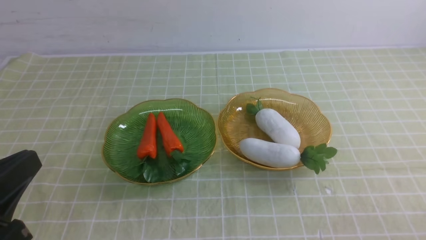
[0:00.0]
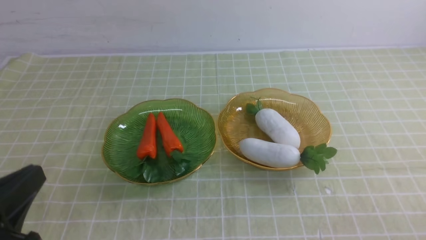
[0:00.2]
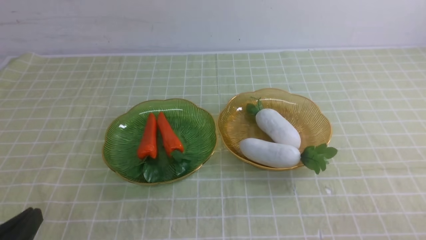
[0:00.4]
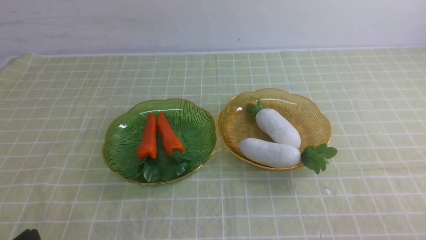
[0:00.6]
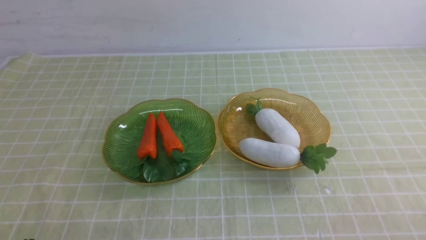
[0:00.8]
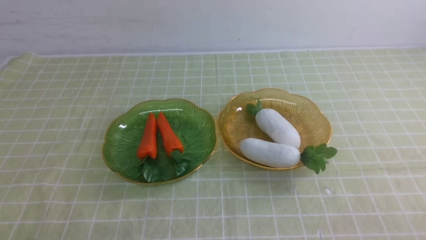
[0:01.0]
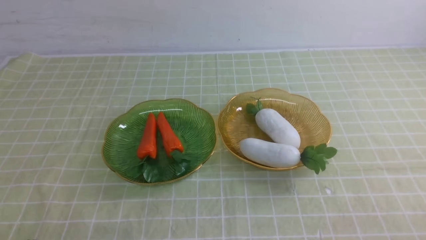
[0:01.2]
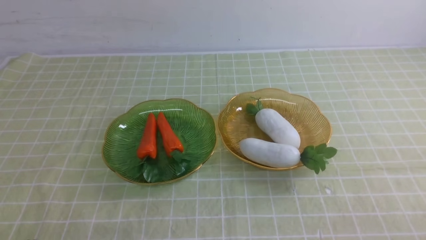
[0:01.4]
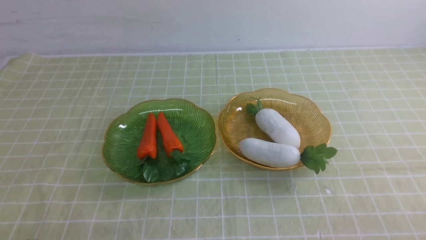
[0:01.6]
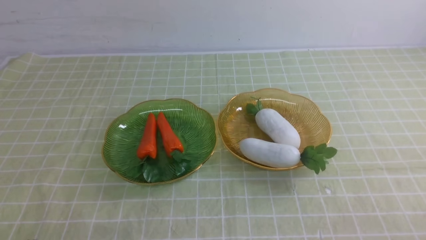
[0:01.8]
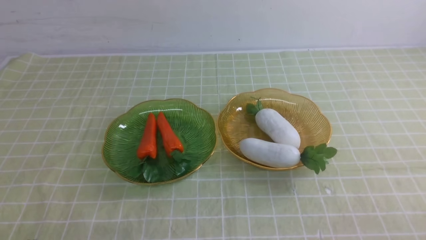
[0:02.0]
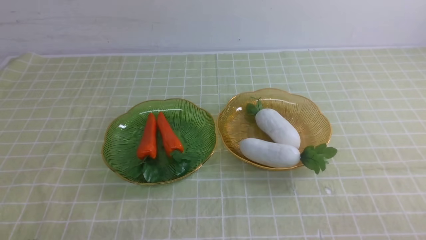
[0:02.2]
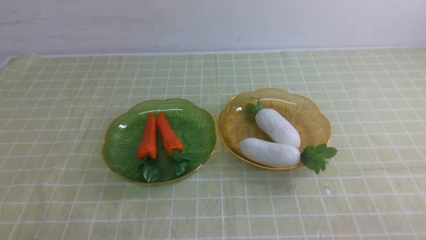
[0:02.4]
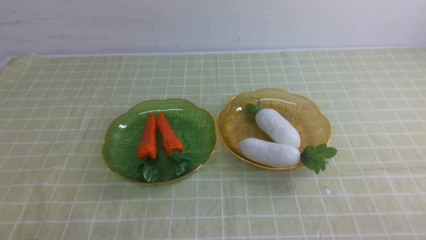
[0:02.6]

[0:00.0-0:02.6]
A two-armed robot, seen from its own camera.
0:00.0 to 0:01.2: The left gripper travels downward by some 15 cm.
0:01.2 to 0:02.6: Both grippers stay put.
